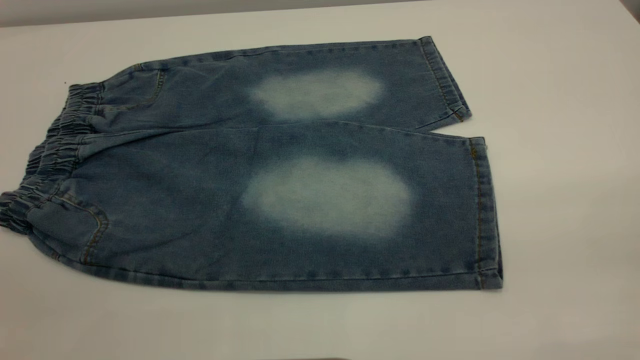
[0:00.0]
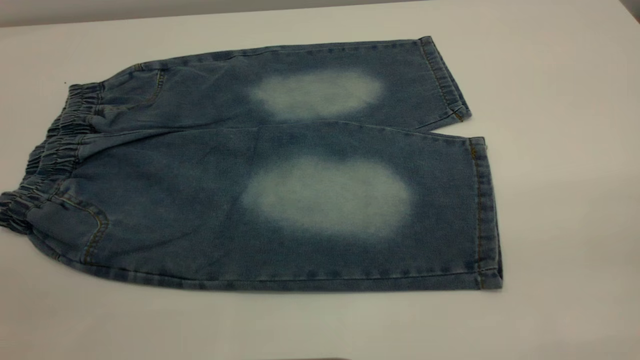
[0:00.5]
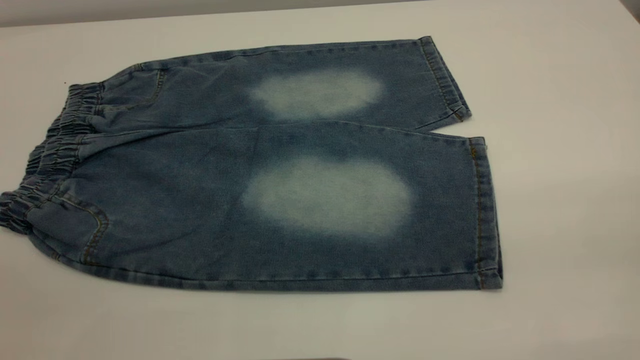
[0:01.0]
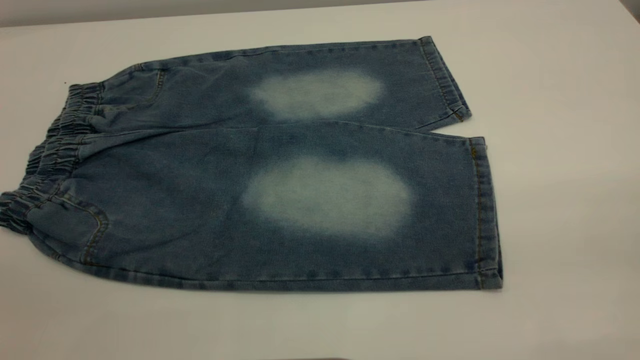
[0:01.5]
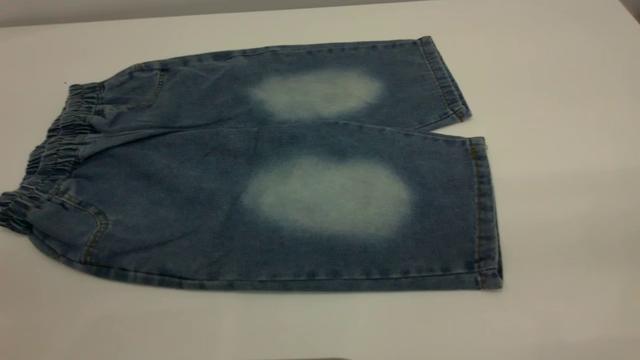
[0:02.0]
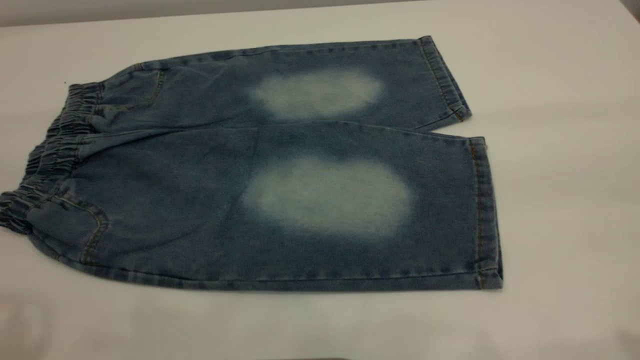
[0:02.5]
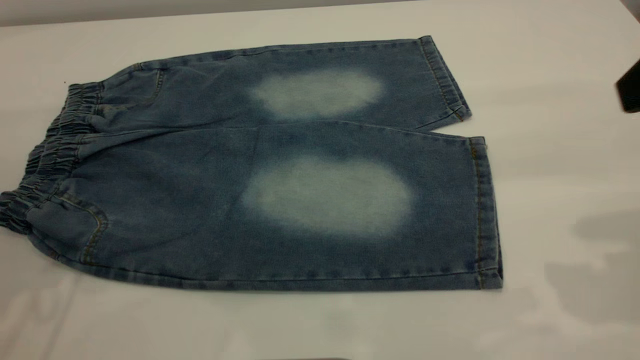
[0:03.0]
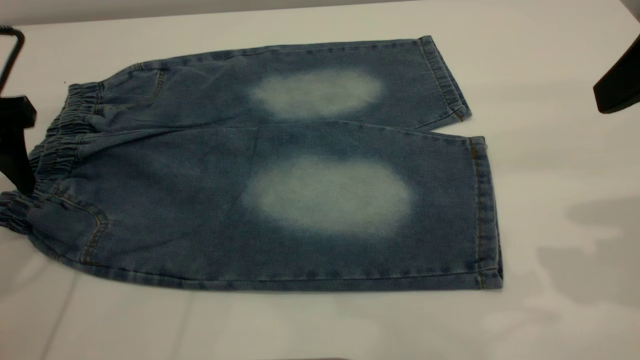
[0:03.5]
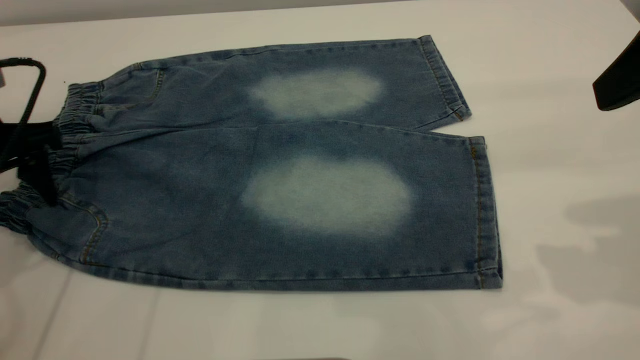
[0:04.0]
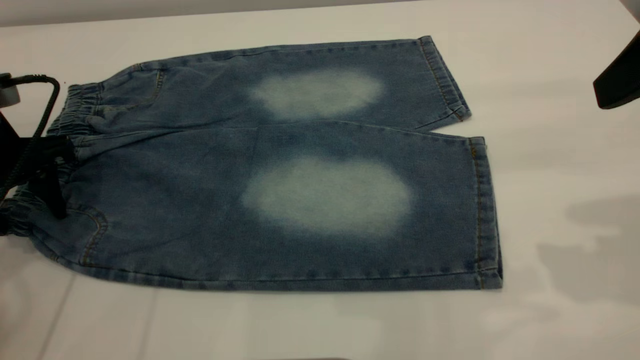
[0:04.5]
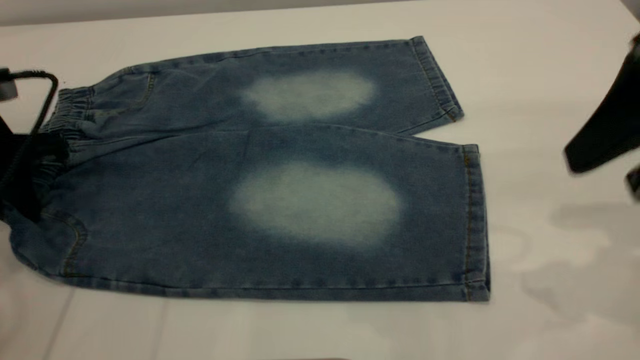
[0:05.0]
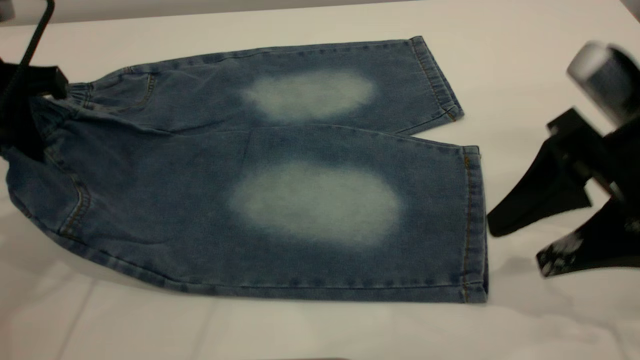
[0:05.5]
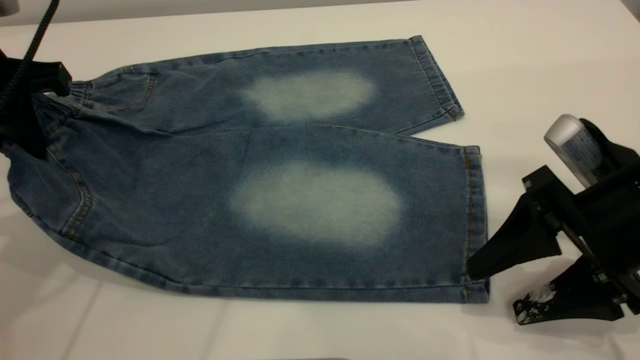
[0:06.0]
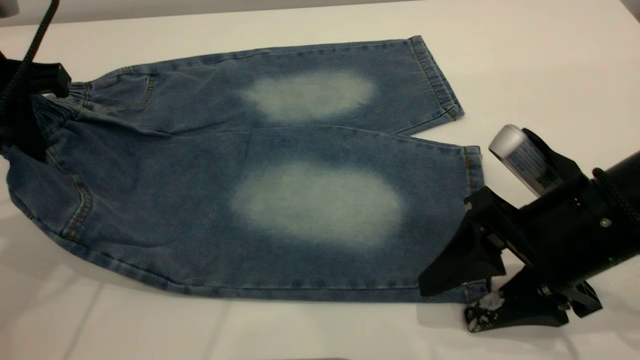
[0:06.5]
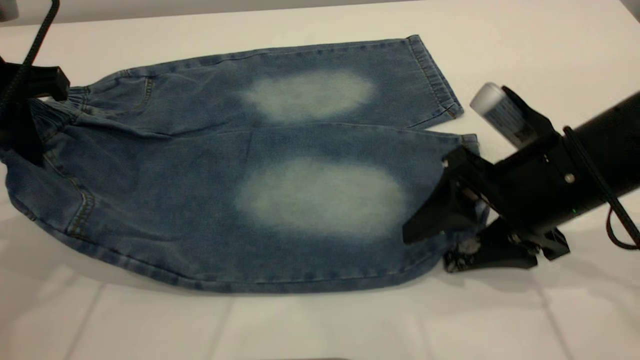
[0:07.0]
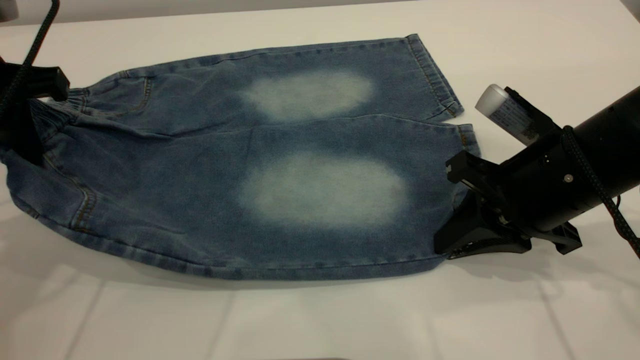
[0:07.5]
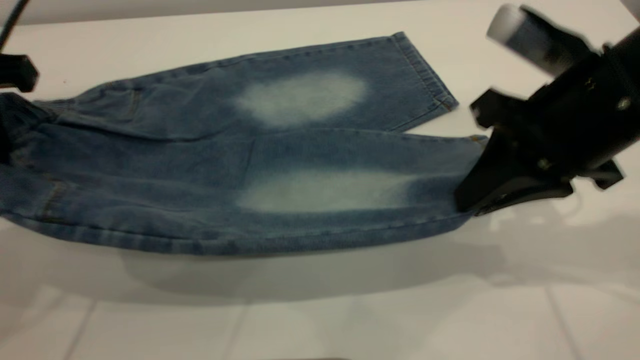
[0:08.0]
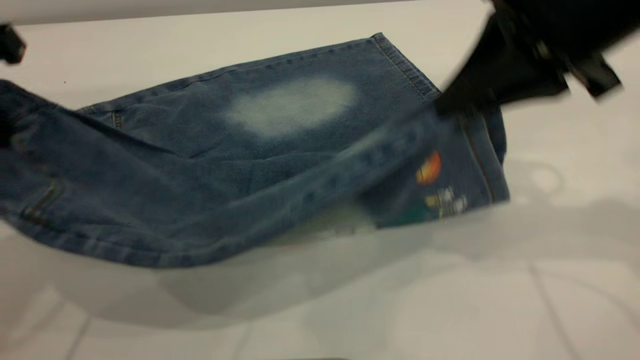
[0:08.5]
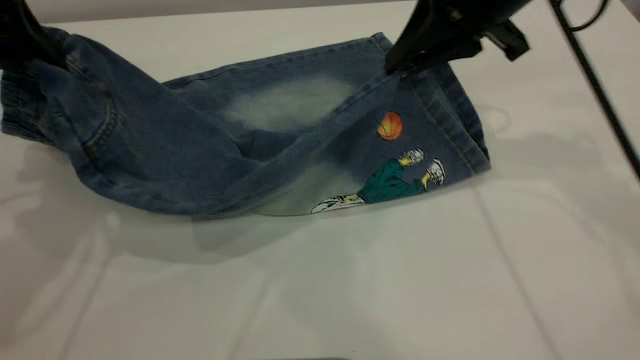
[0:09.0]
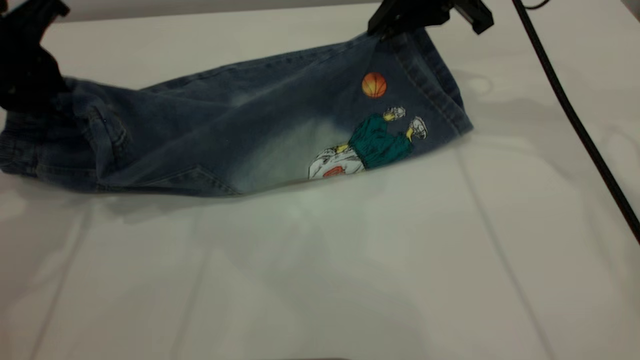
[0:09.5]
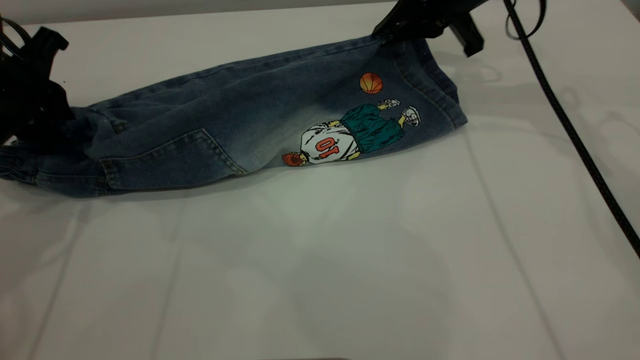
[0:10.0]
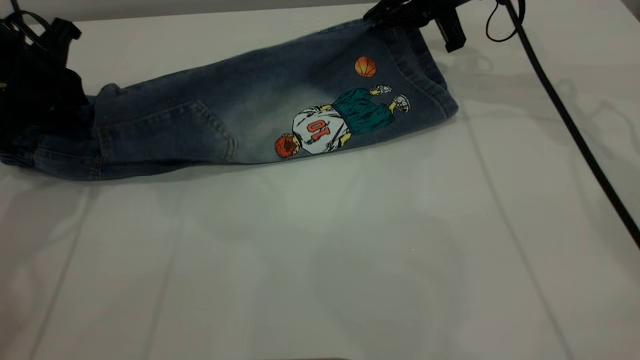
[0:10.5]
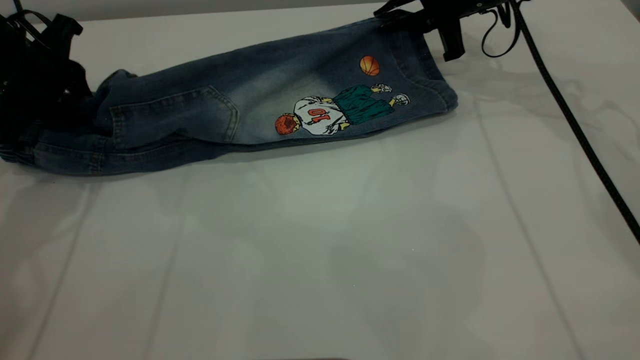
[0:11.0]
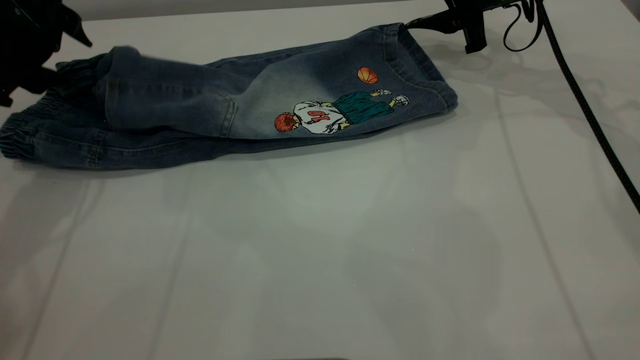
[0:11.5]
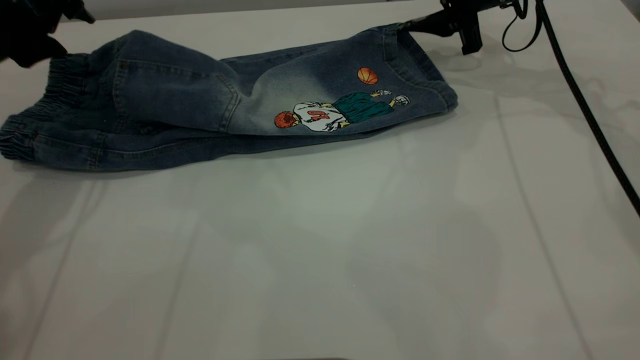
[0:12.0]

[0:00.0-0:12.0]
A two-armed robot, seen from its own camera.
0:02.0 to 0:04.0: The left gripper heads forward and downward, covering some 35 cm. Meanwhile the right gripper shifts approximately 20 cm forward.
0:04.0 to 0:06.0: The left gripper moves upward, some 5 cm, and closes, while the right gripper shifts roughly 15 cm downward.
0:06.0 to 0:08.0: The right gripper travels upward by about 10 cm, and closes.
0:08.0 to 0:10.0: The right gripper shifts about 20 cm forward, while the left gripper travels downward and forward by roughly 10 cm.
0:10.0 to 0:12.0: The left gripper heads forward, covering roughly 5 cm, and opens up. Meanwhile the right gripper moves approximately 5 cm, and opens.

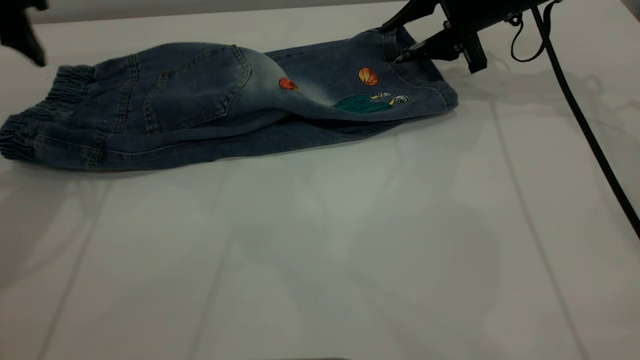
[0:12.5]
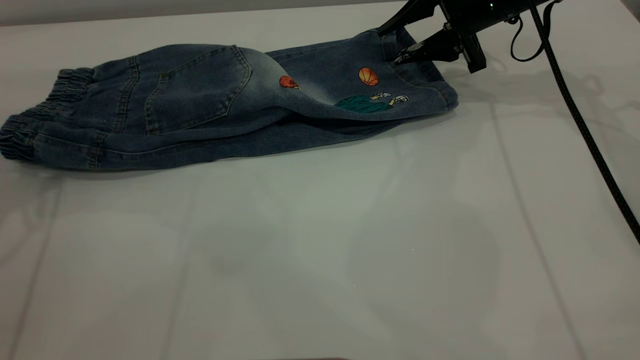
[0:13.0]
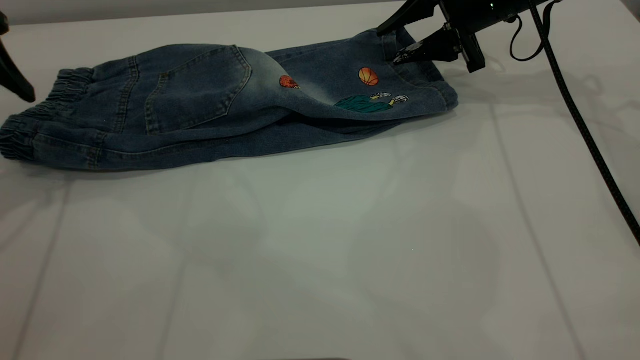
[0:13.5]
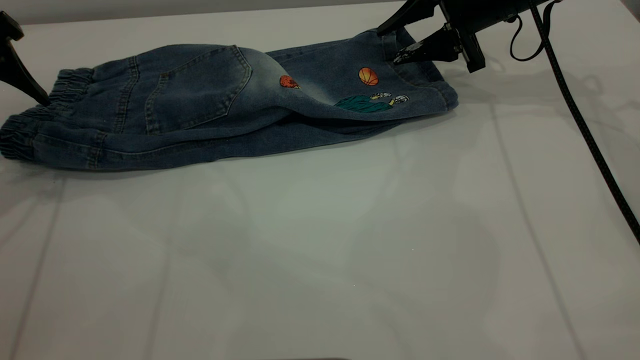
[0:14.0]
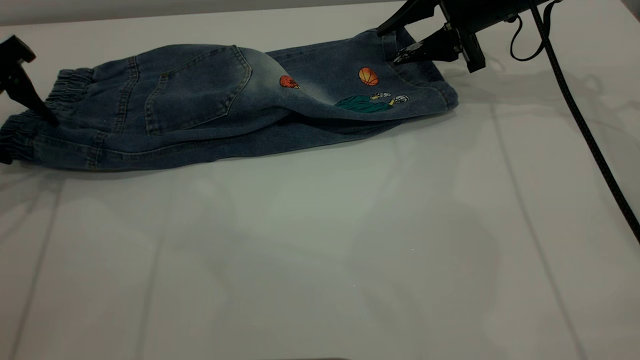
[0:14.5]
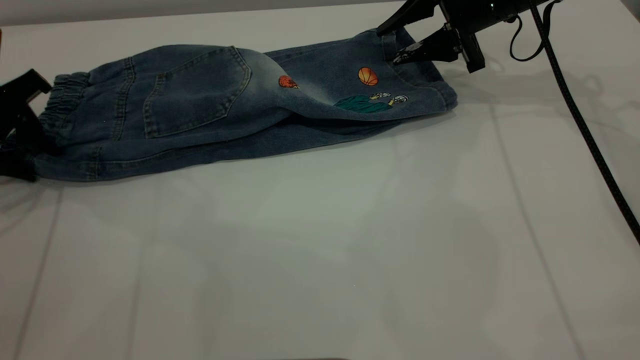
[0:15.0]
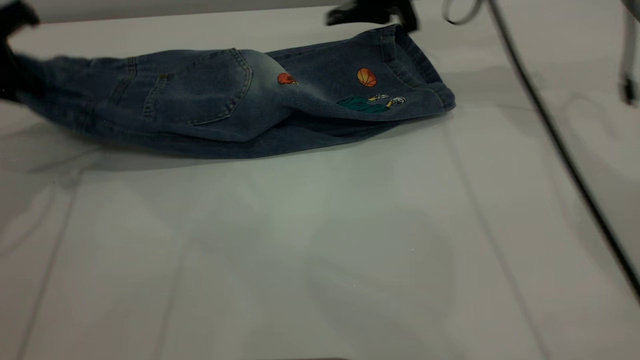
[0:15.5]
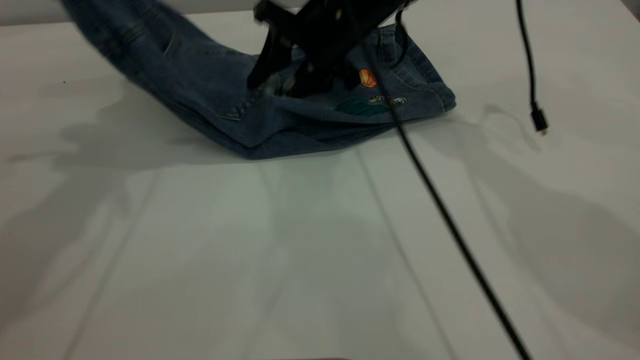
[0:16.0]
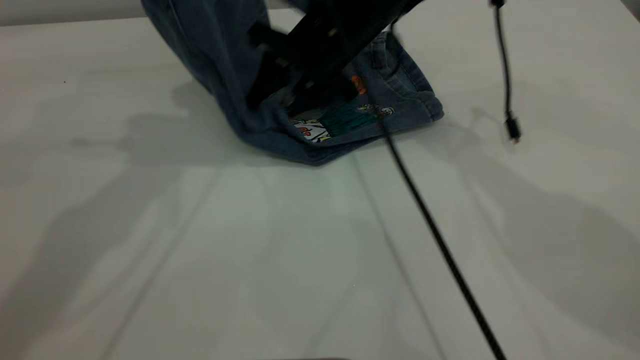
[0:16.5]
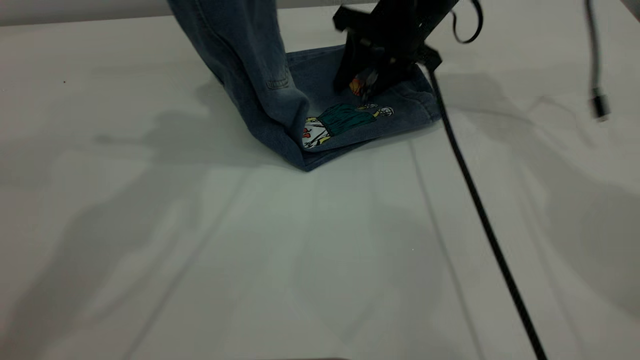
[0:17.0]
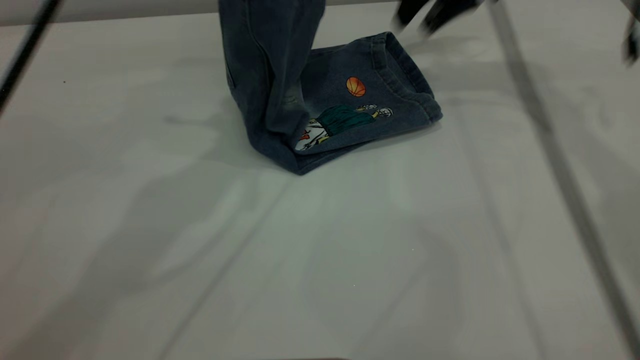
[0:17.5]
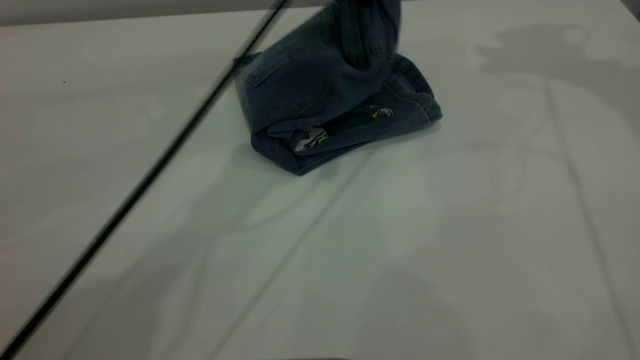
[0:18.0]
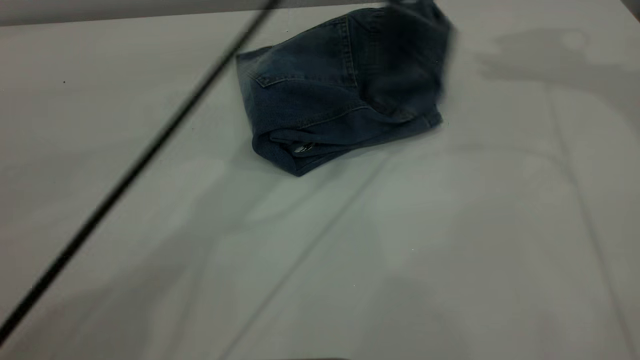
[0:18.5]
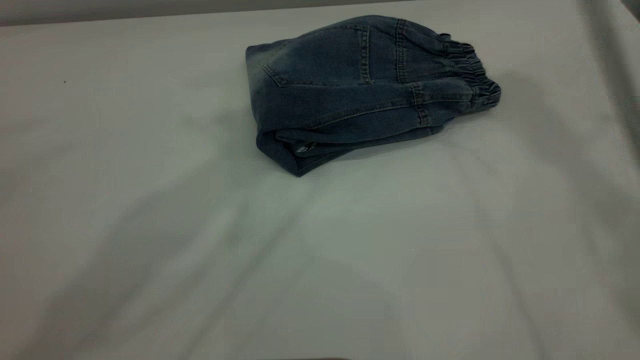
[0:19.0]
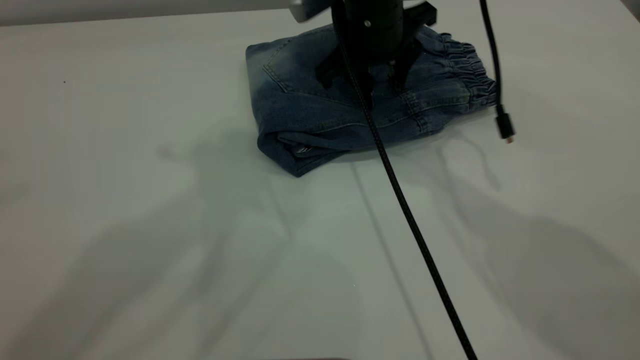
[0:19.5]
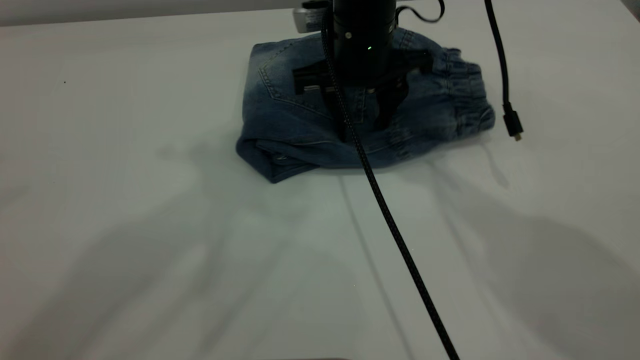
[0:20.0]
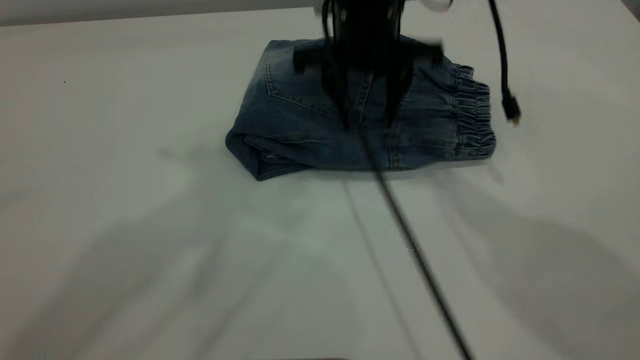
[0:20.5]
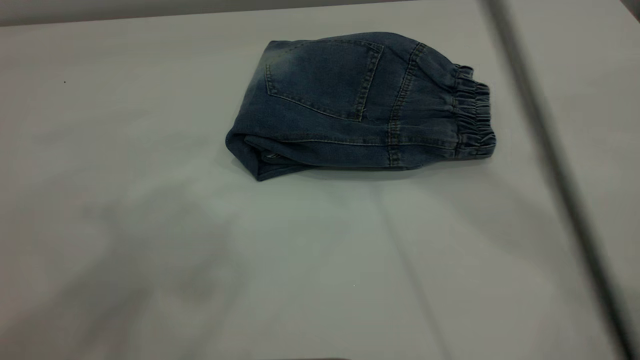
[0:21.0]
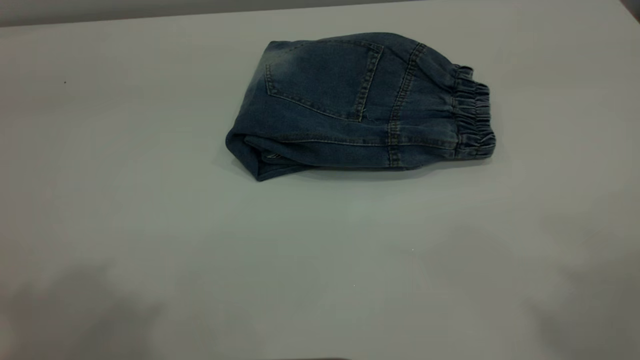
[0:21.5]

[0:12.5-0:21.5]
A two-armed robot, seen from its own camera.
Step, 0:13.0 to 0:20.5: Fold the pants from left to right.
0:12.5 to 0:14.5: The left gripper moves downward and to the left, about 10 cm.
0:14.5 to 0:17.0: The left gripper moves to the right and upward, some 25 cm, and closes its fingers. Meanwhile the right gripper travels to the left by some 10 cm.
0:17.0 to 0:19.5: The right gripper goes approximately 5 cm to the left, and goes upward and returns, about 25 cm each way. Meanwhile the left gripper heads upward, covering about 15 cm, and opens up.
0:19.5 to 0:21.5: The left gripper heads backward and to the left, covering approximately 20 cm, while the right gripper is displaced upward, backward and to the right by some 50 cm.
